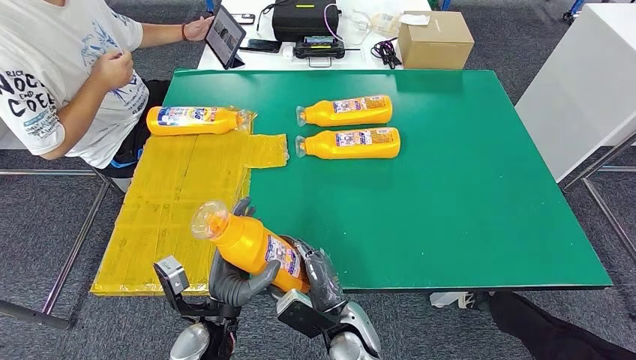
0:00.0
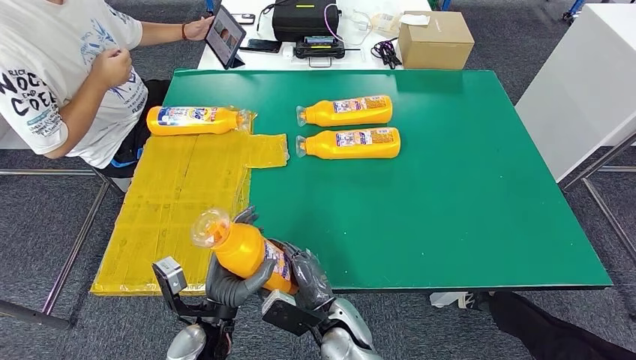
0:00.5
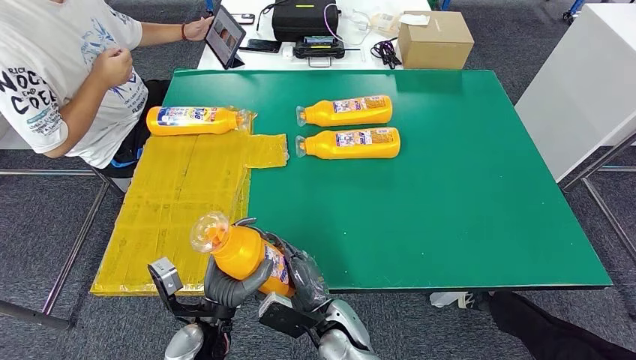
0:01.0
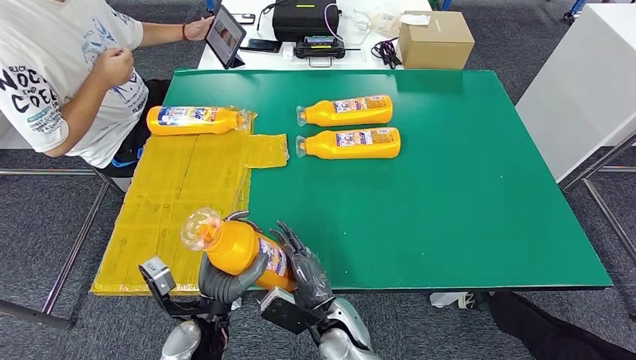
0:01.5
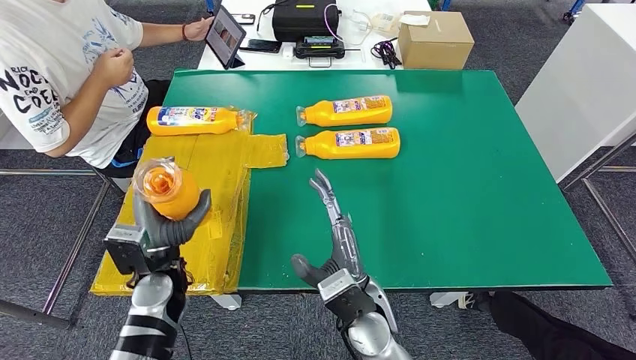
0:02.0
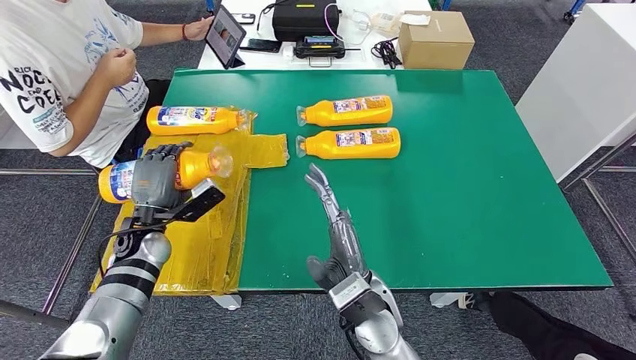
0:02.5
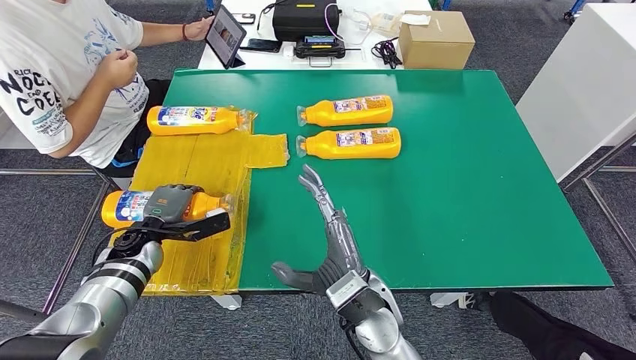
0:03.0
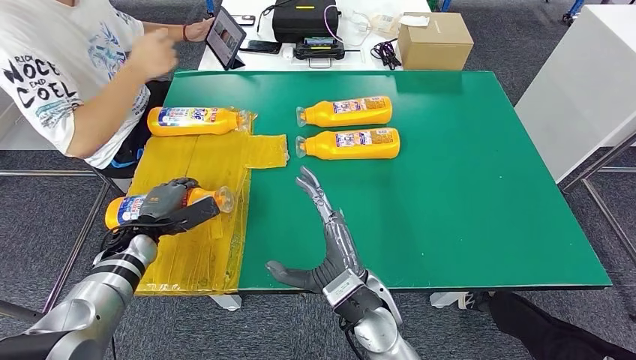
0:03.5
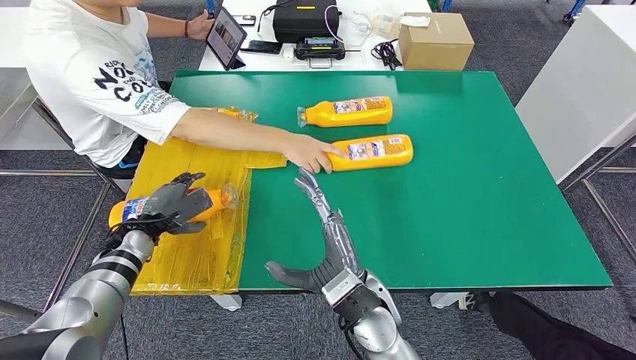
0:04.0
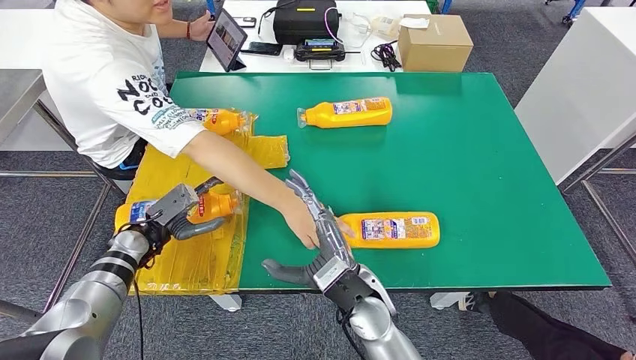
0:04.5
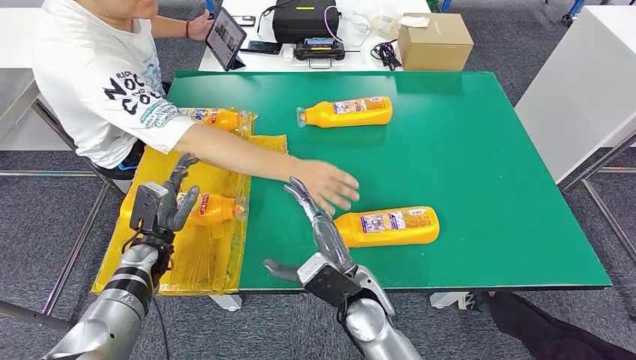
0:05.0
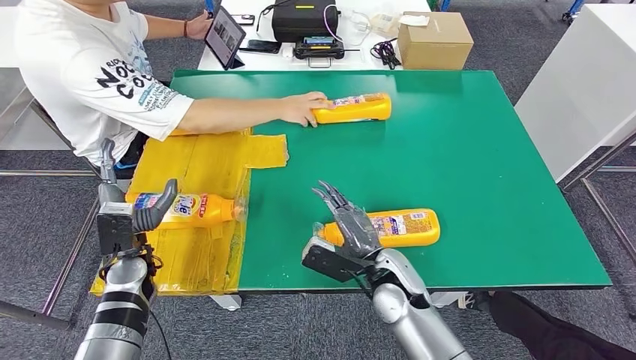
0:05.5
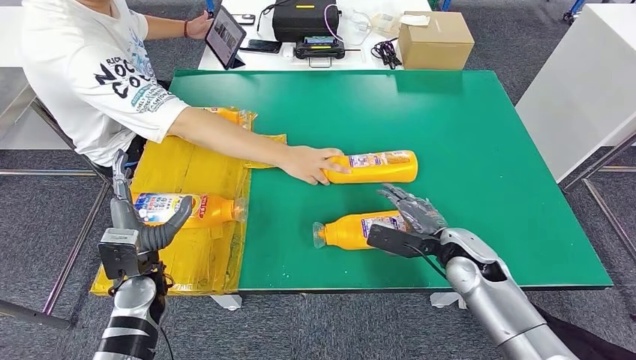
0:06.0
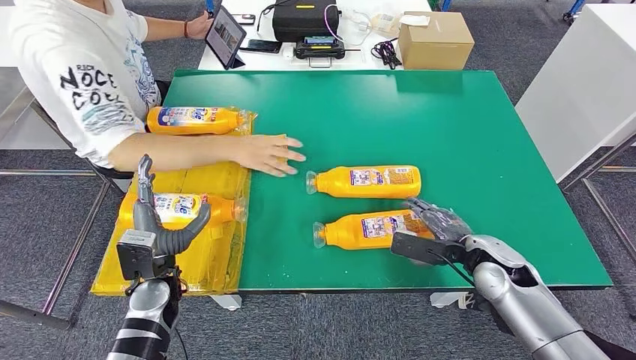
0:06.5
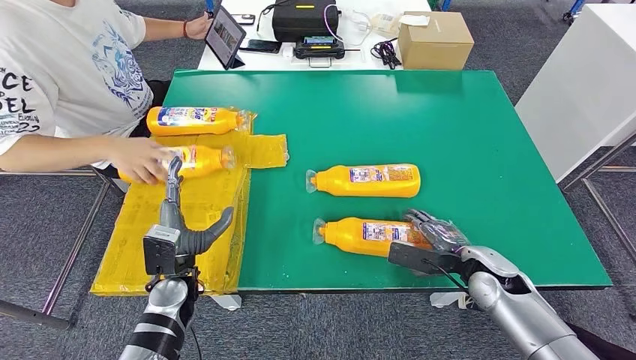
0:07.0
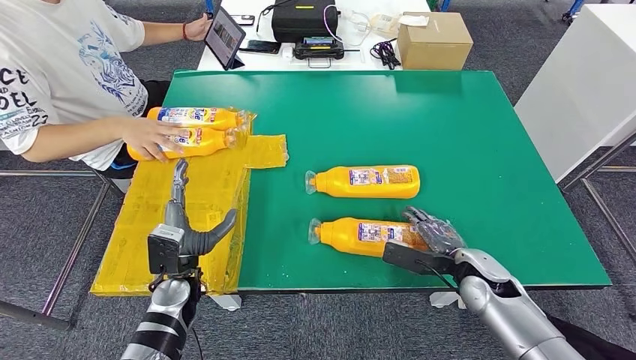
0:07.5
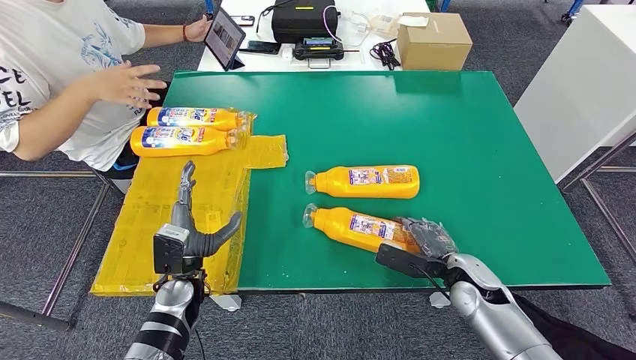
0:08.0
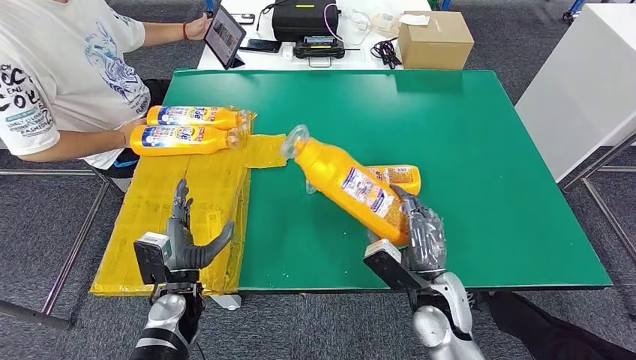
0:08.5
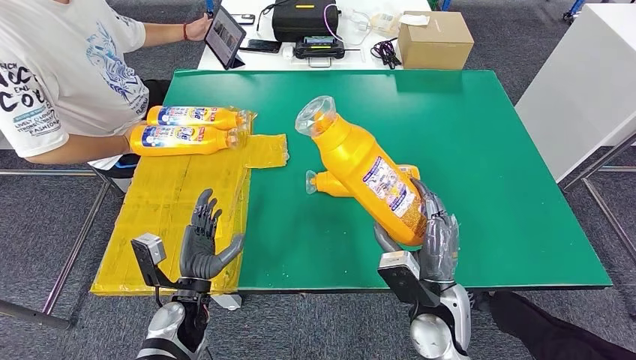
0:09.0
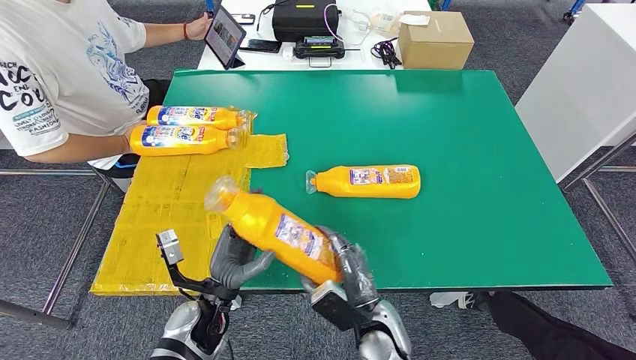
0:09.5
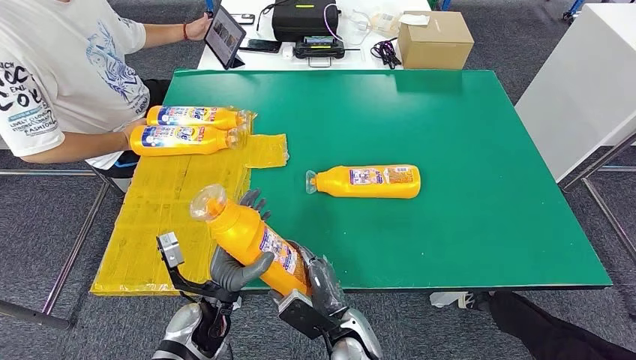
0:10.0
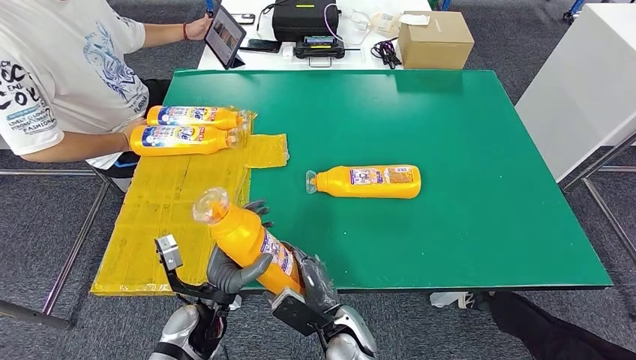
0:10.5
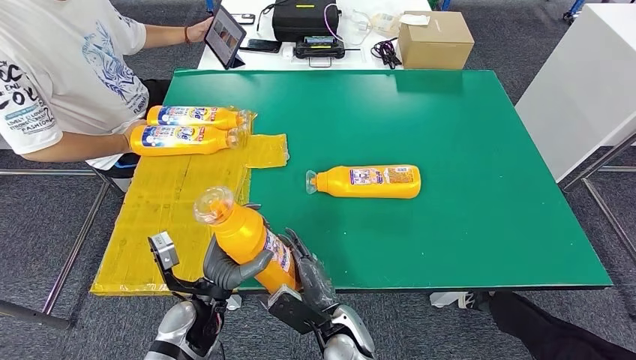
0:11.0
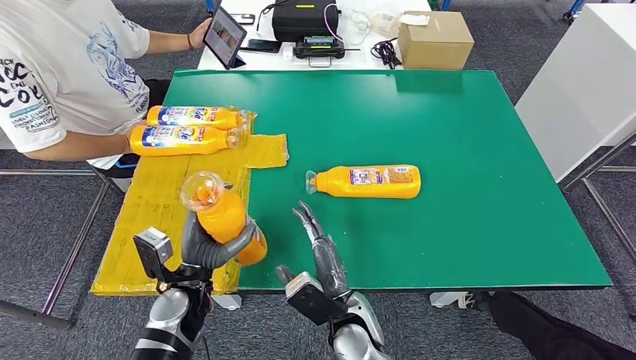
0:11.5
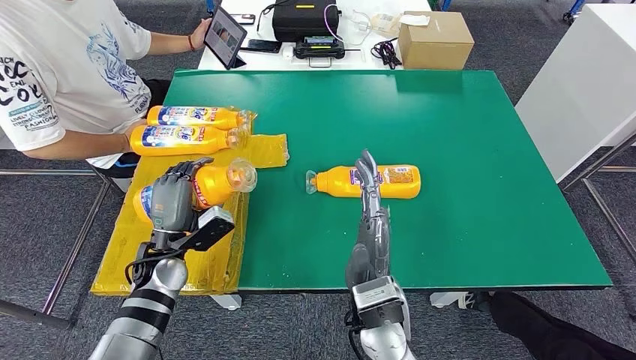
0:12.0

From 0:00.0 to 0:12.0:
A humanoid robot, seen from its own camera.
Step, from 0:00.5 to 0:05.5: Flip the fast-moving consumer goods bottle to the front side.
Step, from 0:06.0 to 0:11.0: Pick up the fast-moving consumer goods bottle from the table.
From 0:00.0 to 0:02.0: The right hand moves upward, about 10 cm, while the left hand is displaced to the left and forward by about 10 cm.
From 0:10.0 to 0:12.0: The right hand goes about 15 cm upward. Meanwhile the left hand heads to the left and forward, covering roughly 10 cm.

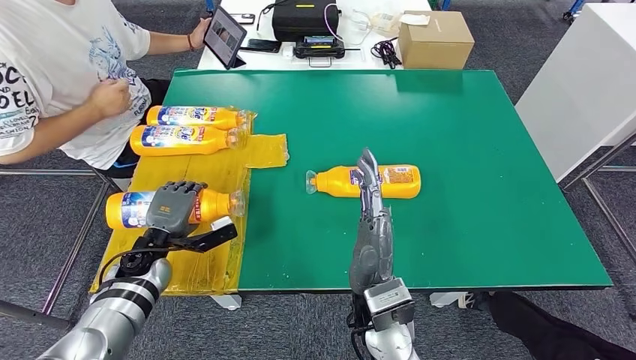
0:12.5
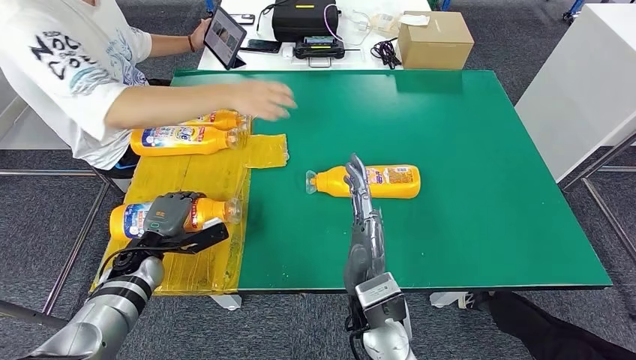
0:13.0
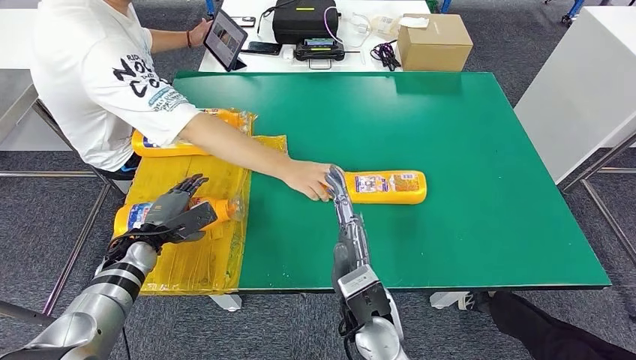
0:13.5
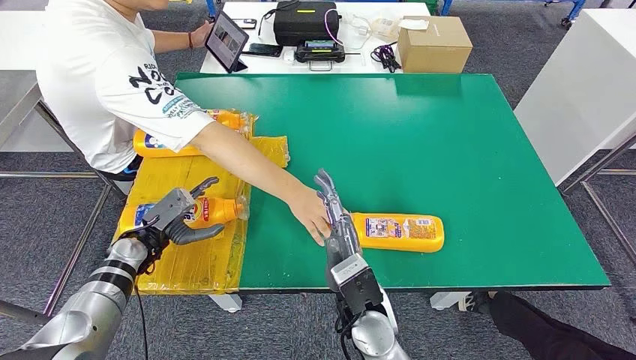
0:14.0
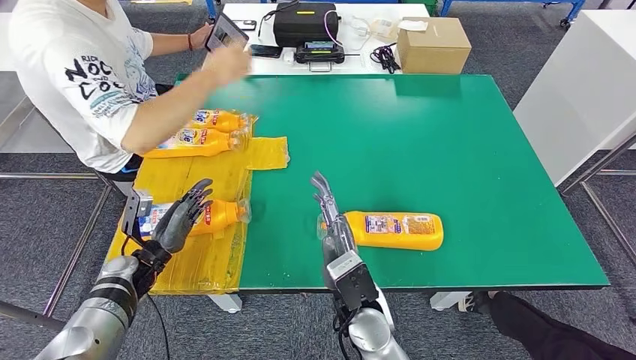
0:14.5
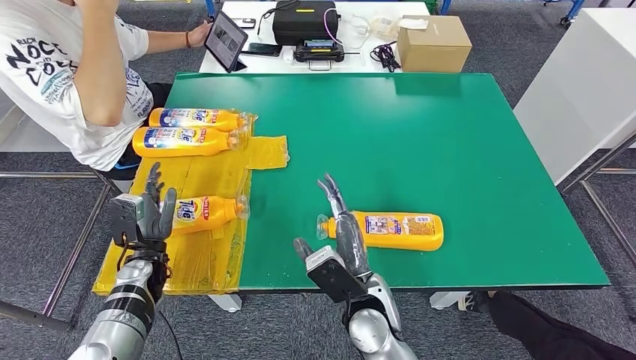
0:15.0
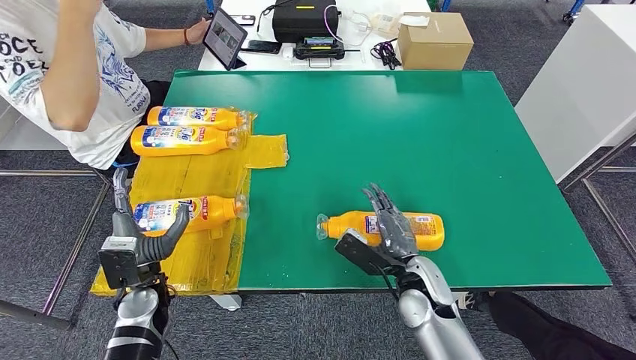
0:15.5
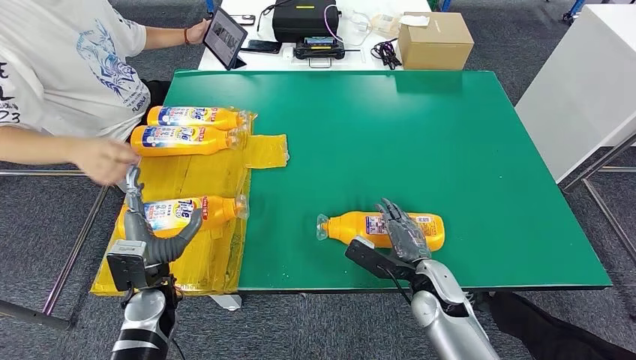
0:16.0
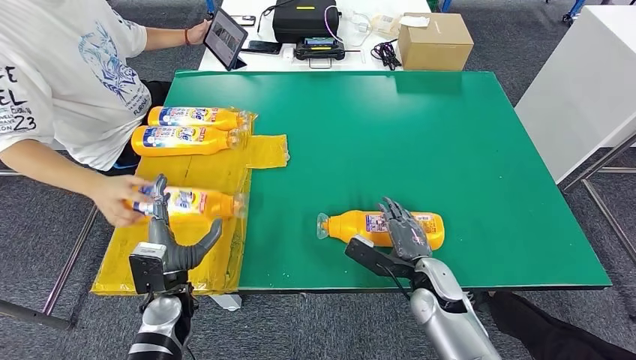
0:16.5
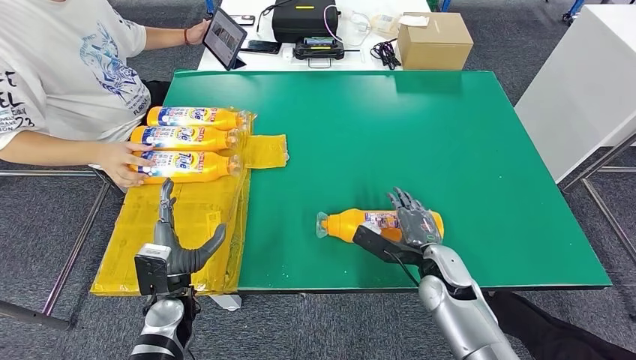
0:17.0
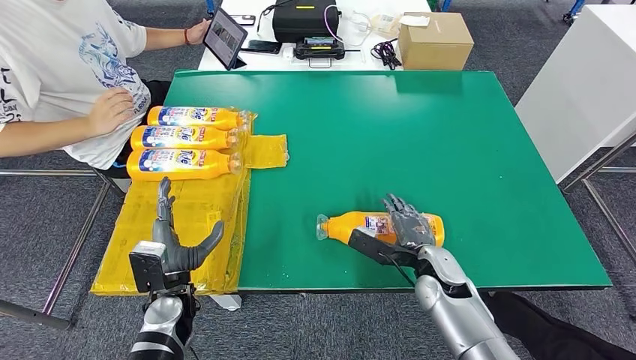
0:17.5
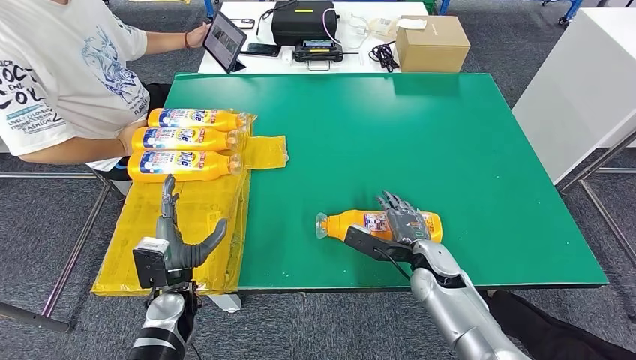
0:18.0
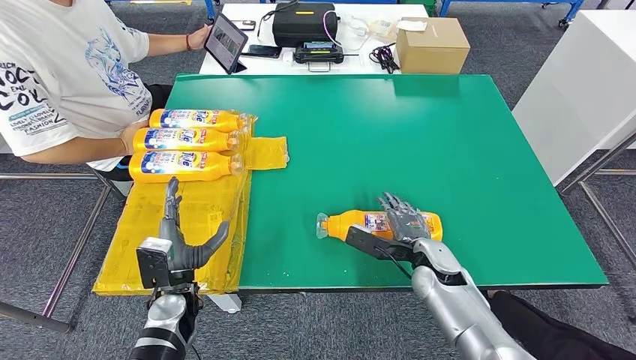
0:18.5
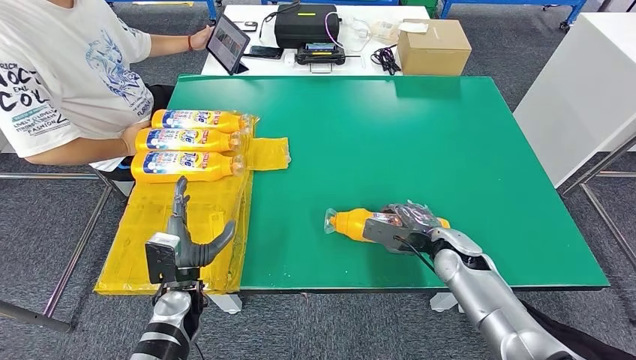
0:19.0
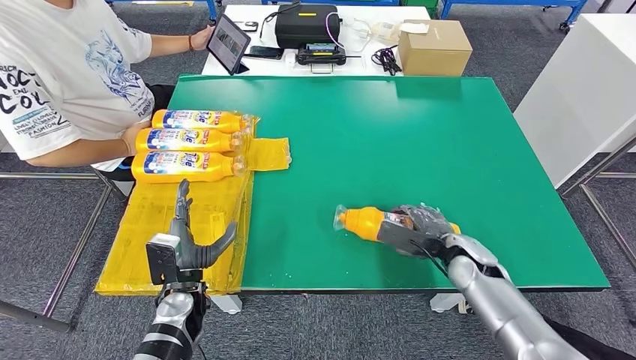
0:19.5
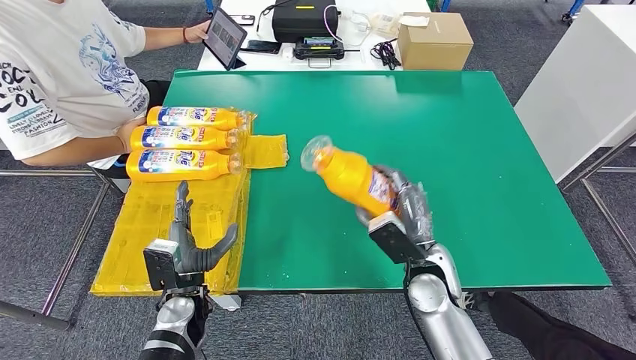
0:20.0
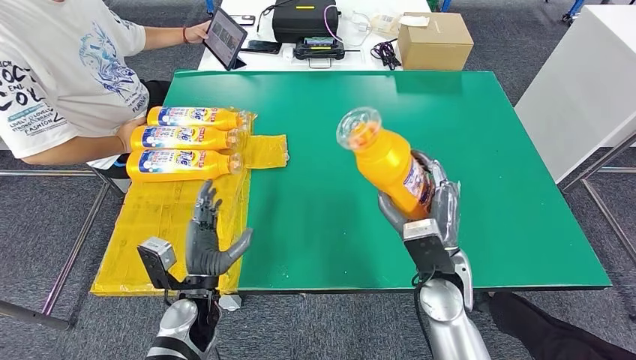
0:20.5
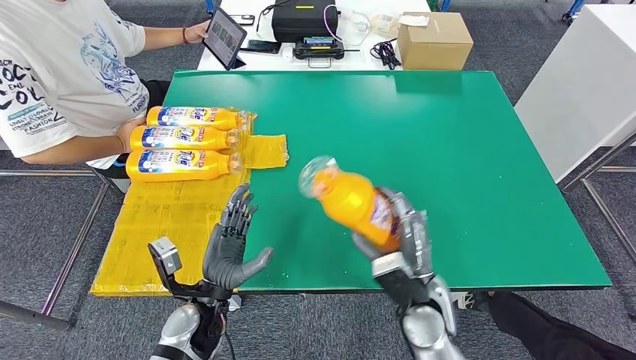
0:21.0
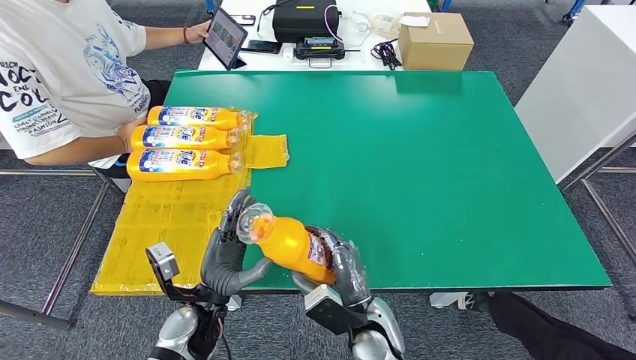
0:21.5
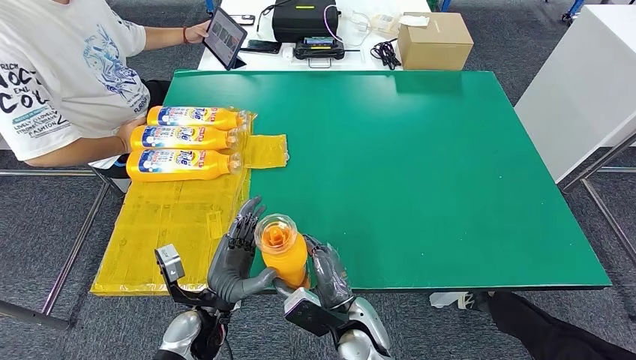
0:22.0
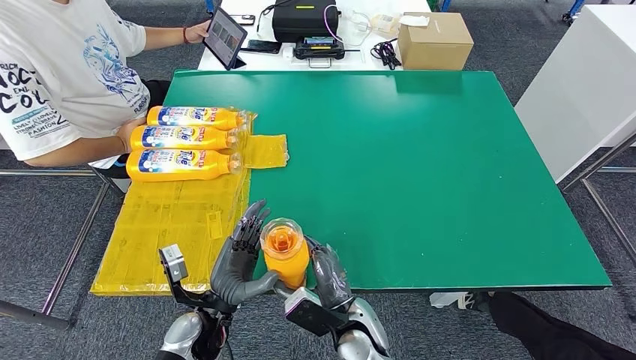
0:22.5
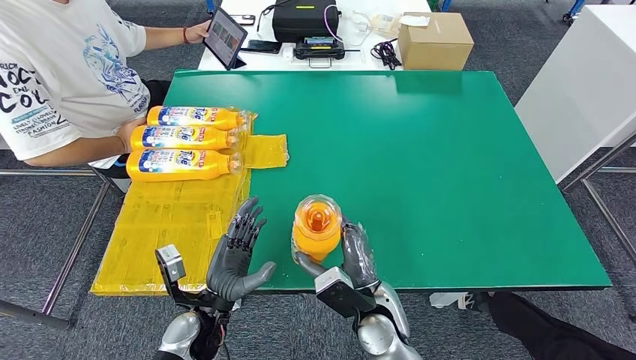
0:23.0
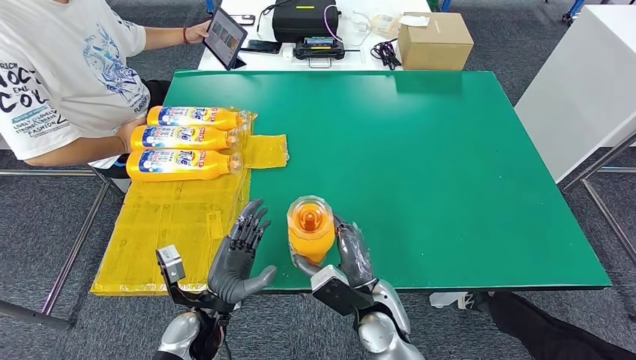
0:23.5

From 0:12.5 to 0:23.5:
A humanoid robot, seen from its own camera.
Step, from 0:12.5 to 0:14.0: Flip the fast-moving consumer goods bottle to the front side.
Step, from 0:15.0 to 0:20.0: Pick up the fast-moving consumer goods bottle from the table.
From 0:18.0 to 0:20.0: The right hand is displaced upward by approximately 5 cm, and reaches about 5 cm to the right, then returns.
From 0:20.0 to 0:21.5: The right hand goes some 15 cm to the left, backward and downward, while the left hand ends up roughly 5 cm from where it was.
From 0:21.5 to 0:23.5: There are only small adjustments of the hands.
